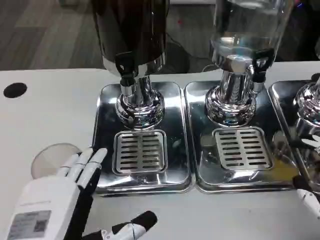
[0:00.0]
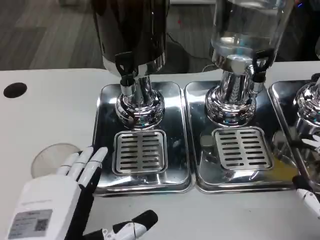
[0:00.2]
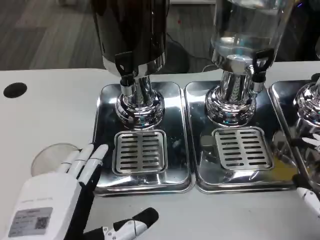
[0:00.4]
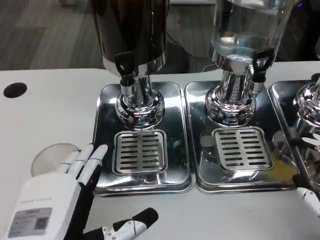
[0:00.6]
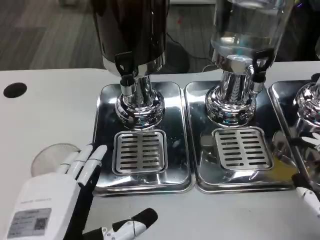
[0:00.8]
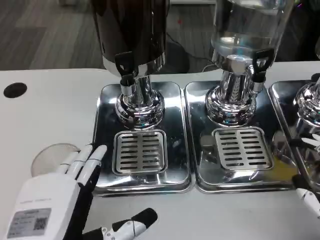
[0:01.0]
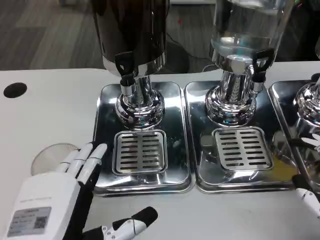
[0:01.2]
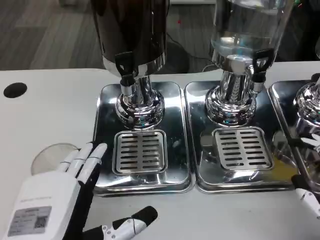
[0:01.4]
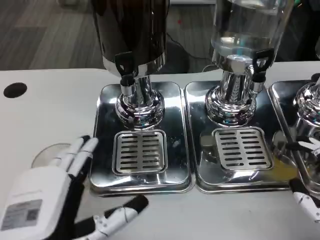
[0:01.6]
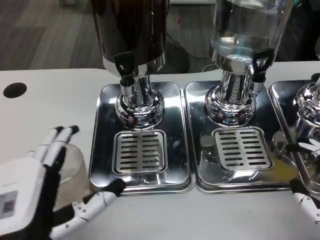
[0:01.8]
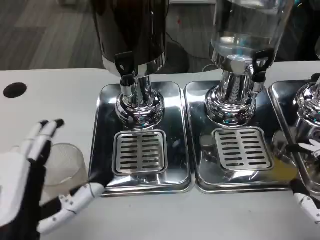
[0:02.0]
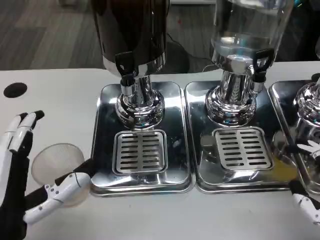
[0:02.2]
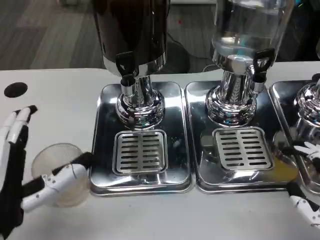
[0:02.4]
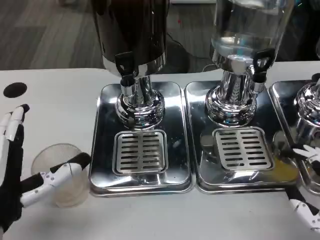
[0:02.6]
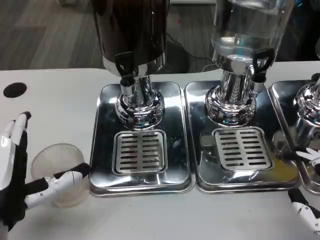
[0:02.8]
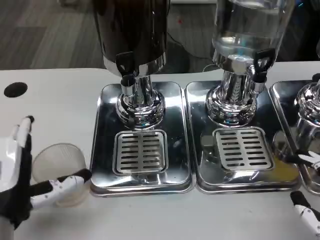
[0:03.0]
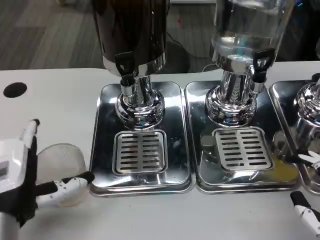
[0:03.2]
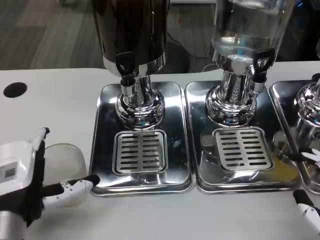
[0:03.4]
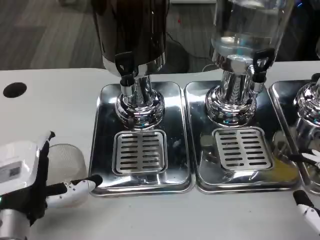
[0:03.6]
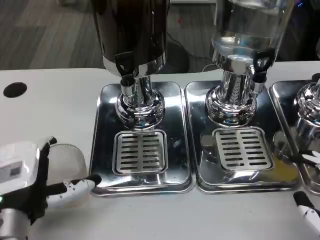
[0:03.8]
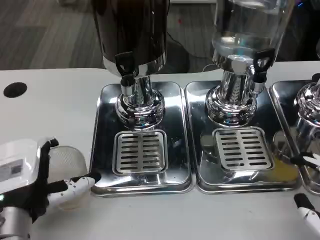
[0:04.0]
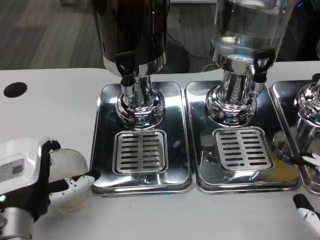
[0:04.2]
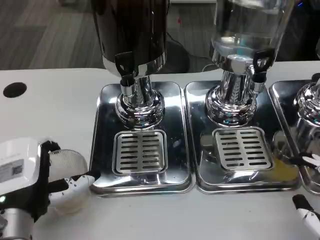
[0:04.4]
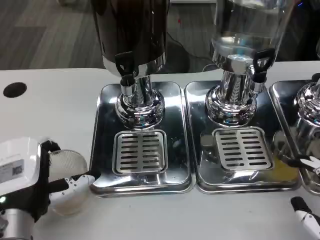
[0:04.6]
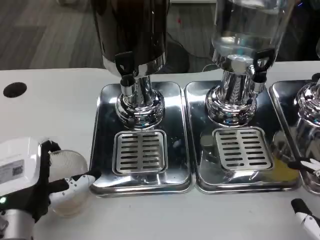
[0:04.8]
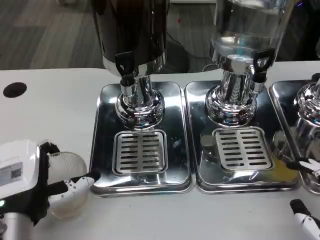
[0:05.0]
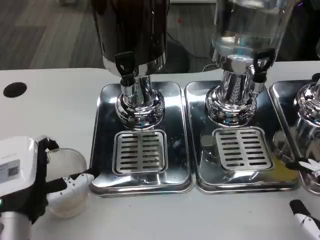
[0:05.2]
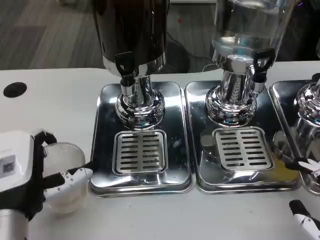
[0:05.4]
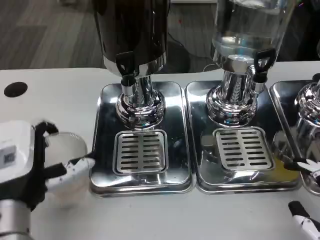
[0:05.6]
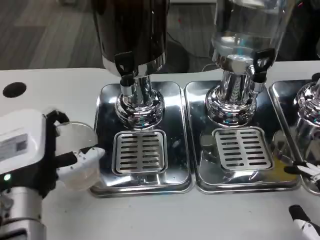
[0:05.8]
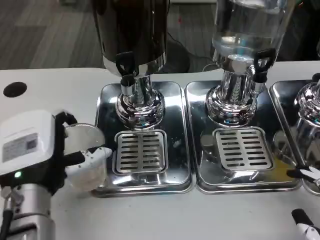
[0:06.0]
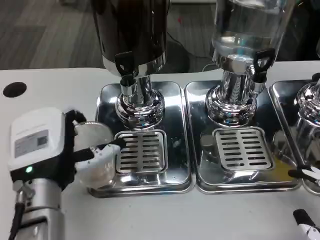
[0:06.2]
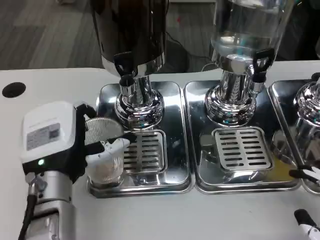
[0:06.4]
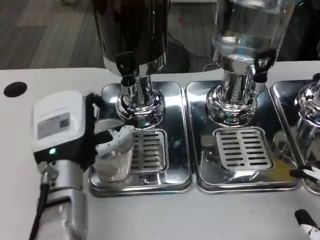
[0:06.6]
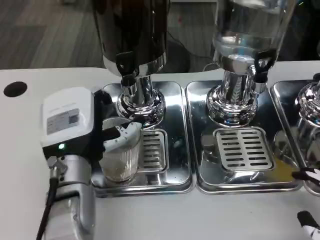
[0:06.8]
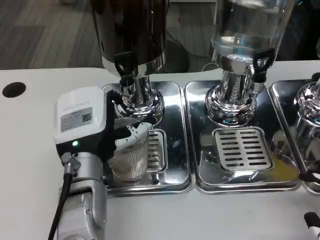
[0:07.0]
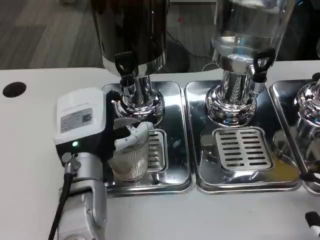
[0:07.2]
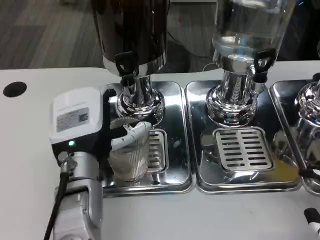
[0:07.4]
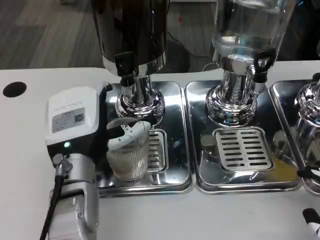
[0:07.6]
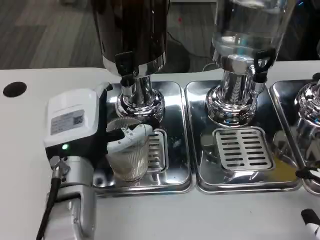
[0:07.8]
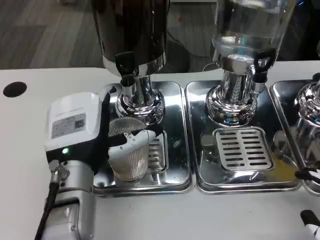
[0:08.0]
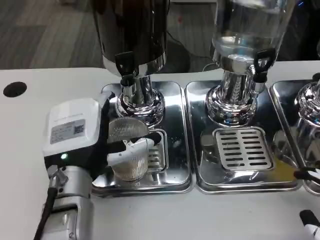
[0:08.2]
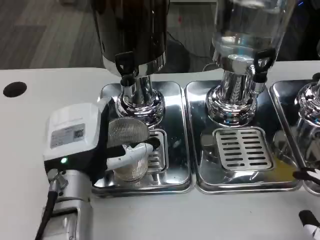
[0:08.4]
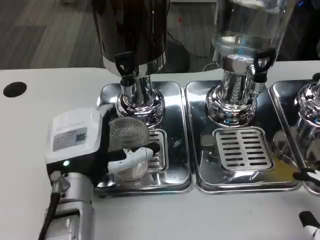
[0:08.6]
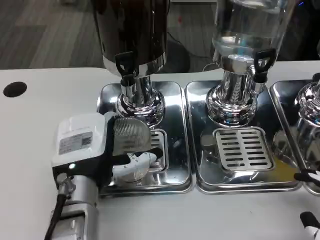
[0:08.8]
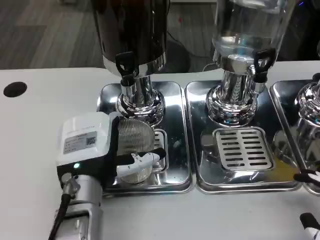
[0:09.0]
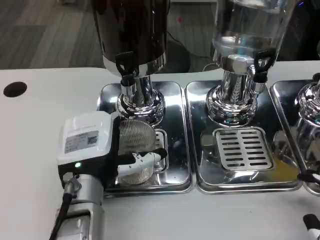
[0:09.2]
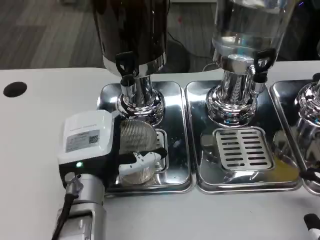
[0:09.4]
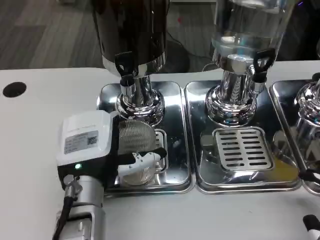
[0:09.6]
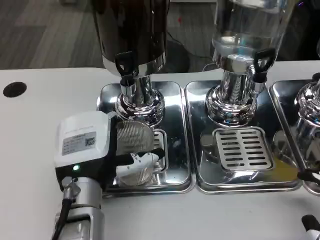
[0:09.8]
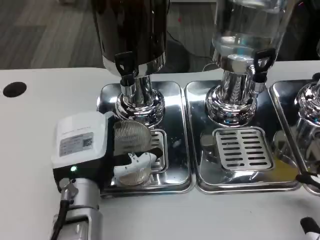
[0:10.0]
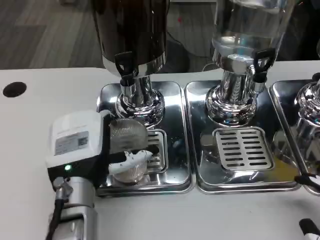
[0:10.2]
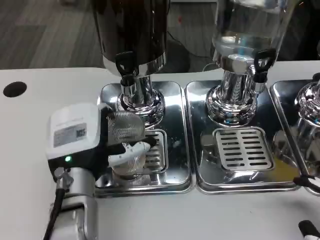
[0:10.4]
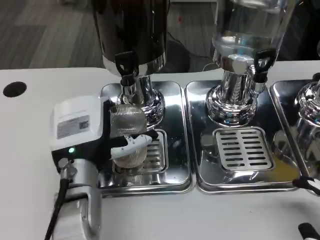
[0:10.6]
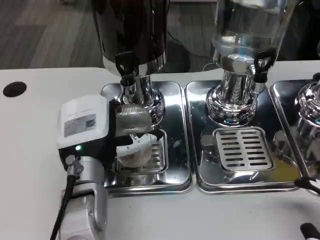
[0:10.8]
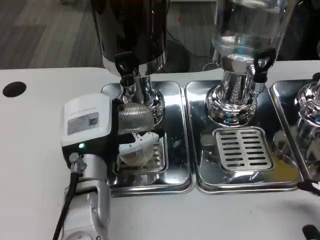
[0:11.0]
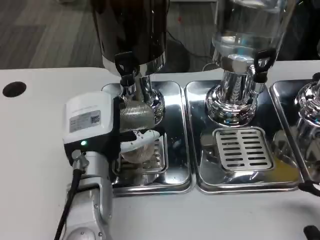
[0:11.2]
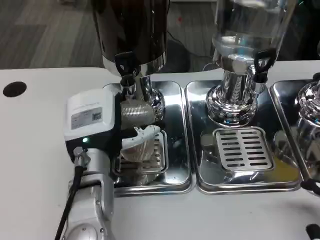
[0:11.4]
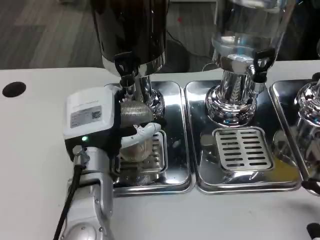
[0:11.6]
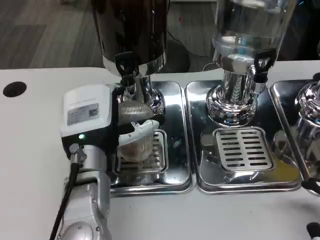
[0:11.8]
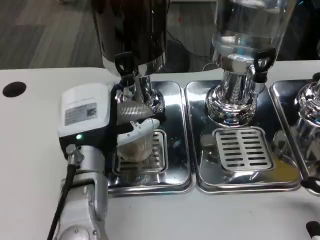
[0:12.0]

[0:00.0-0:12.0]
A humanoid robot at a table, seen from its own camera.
Task of the whole recording: Grasp the cup under the faucet to collect the drink, then remove the cup.
0:00.0 to 0:01.6: Both hands stay about where they are.
0:01.6 to 0:03.0: The left hand moves forward, roughly 5 cm.
0:03.0 to 0:06.0: There are only small adjustments of the hands.
0:06.0 to 0:07.6: The left hand ends up roughly 5 cm from where it was.
0:07.6 to 0:12.0: The hands stay close to where they were, moving slightly.

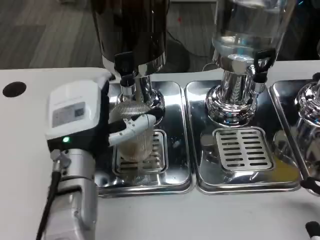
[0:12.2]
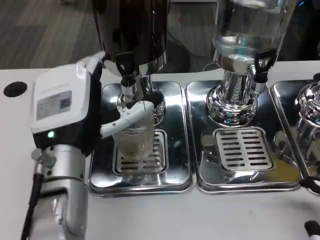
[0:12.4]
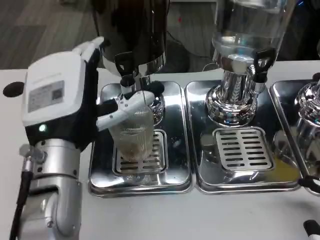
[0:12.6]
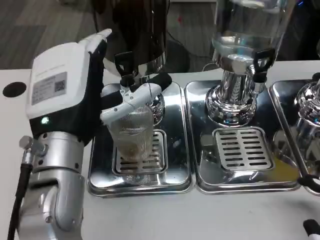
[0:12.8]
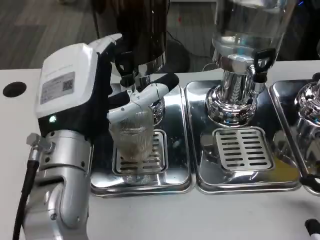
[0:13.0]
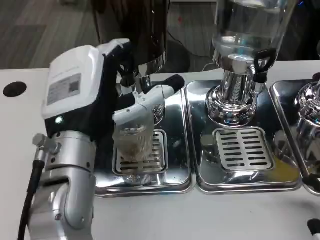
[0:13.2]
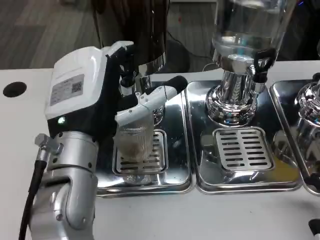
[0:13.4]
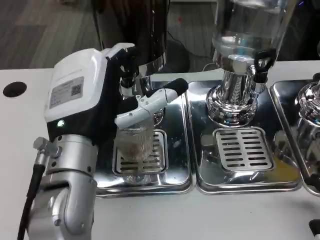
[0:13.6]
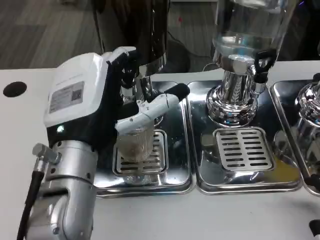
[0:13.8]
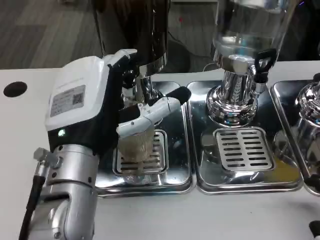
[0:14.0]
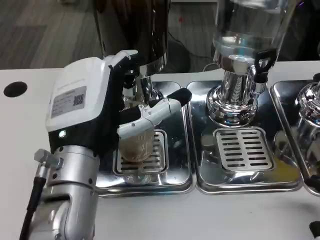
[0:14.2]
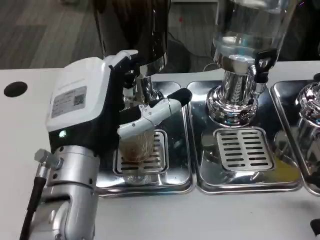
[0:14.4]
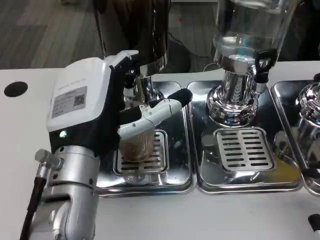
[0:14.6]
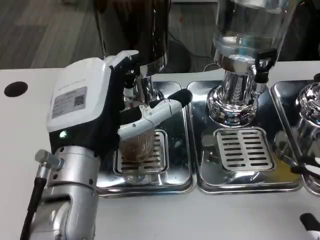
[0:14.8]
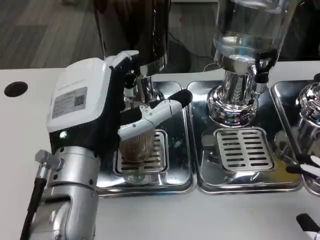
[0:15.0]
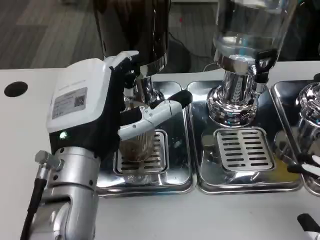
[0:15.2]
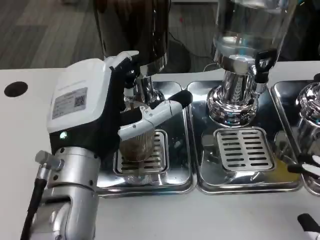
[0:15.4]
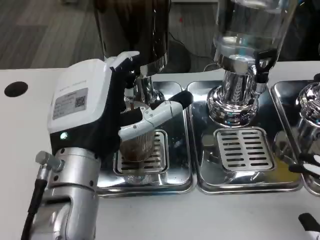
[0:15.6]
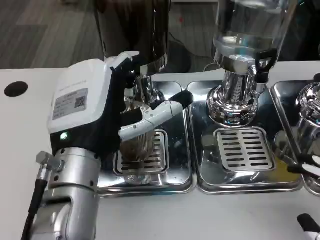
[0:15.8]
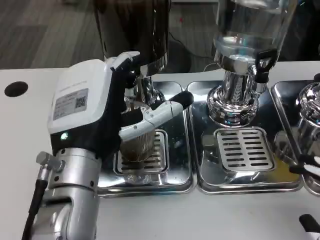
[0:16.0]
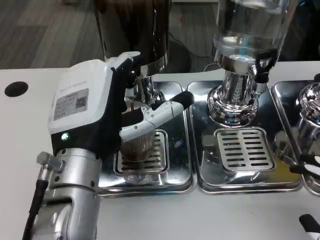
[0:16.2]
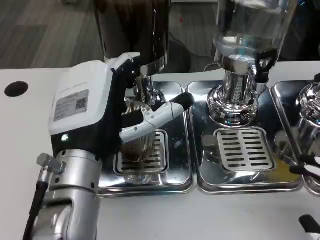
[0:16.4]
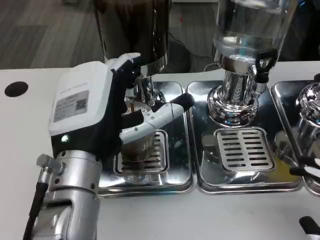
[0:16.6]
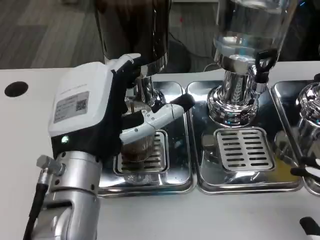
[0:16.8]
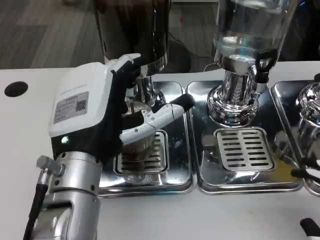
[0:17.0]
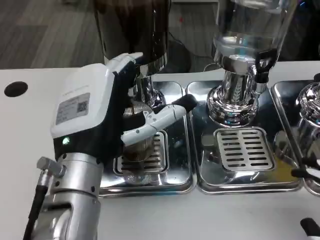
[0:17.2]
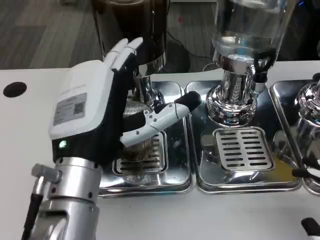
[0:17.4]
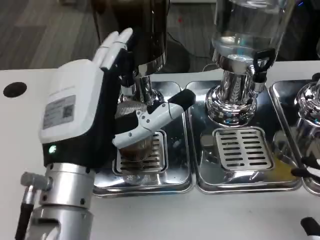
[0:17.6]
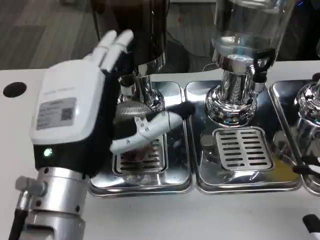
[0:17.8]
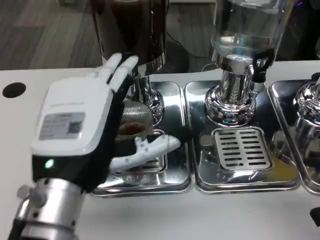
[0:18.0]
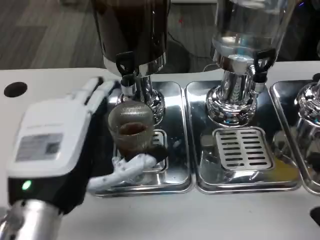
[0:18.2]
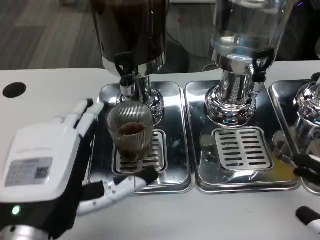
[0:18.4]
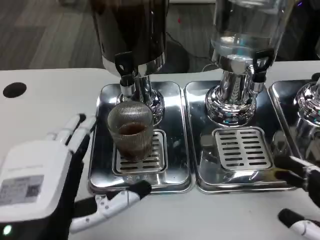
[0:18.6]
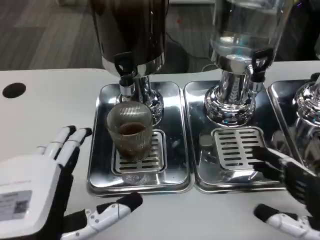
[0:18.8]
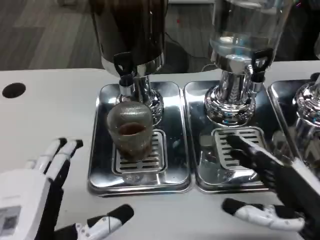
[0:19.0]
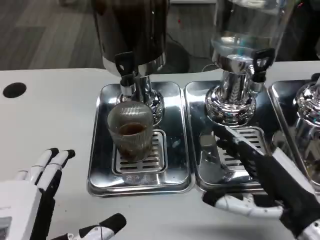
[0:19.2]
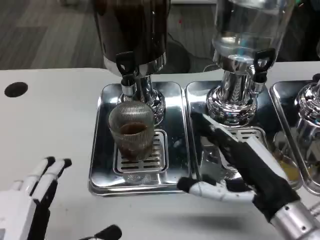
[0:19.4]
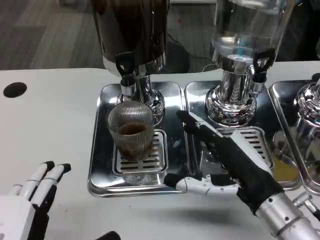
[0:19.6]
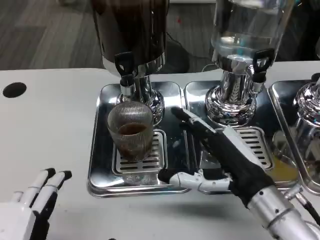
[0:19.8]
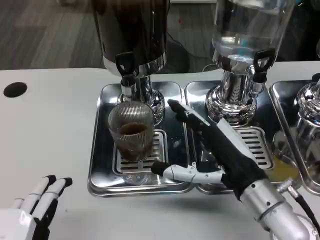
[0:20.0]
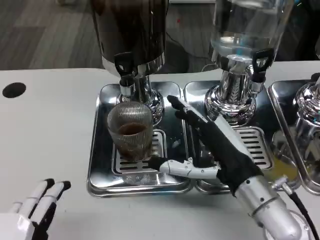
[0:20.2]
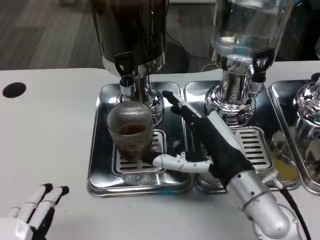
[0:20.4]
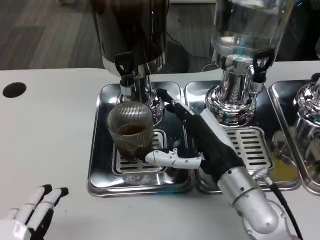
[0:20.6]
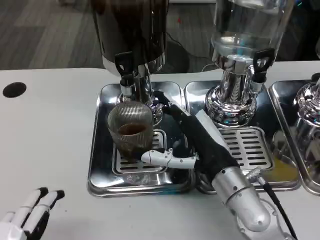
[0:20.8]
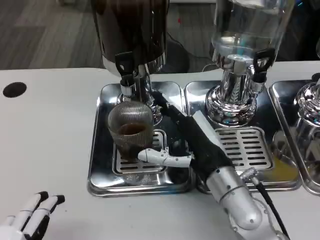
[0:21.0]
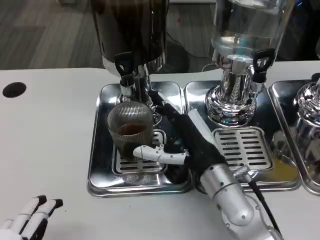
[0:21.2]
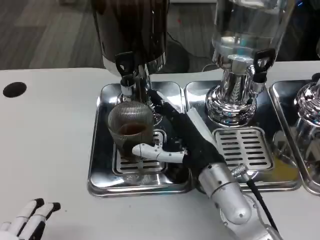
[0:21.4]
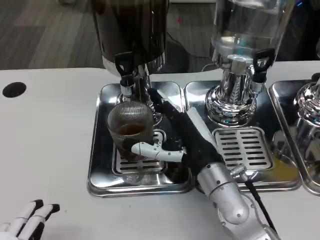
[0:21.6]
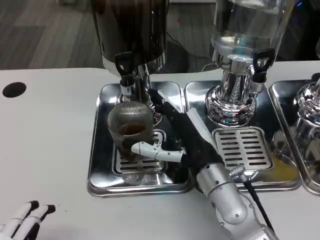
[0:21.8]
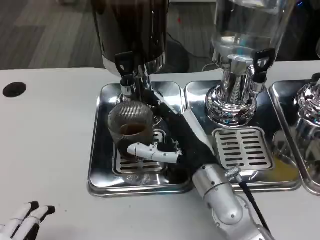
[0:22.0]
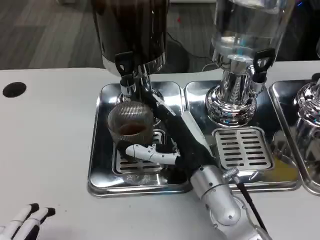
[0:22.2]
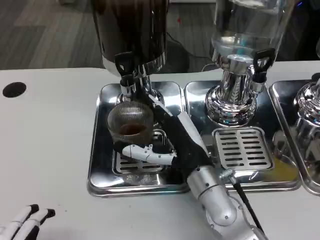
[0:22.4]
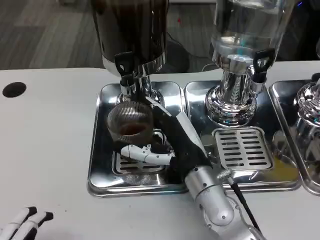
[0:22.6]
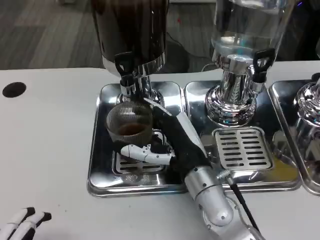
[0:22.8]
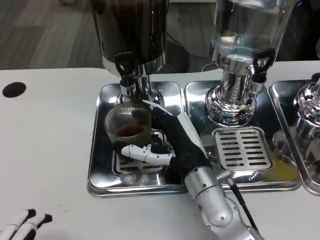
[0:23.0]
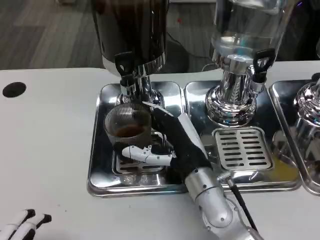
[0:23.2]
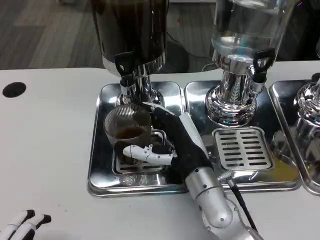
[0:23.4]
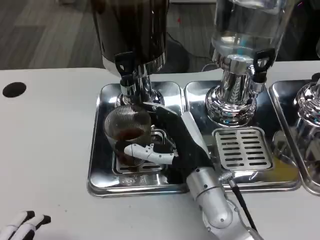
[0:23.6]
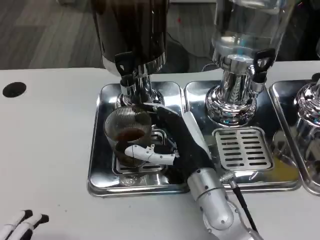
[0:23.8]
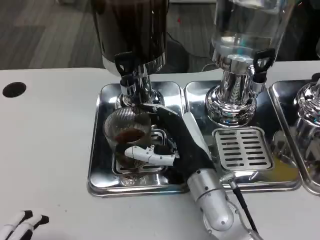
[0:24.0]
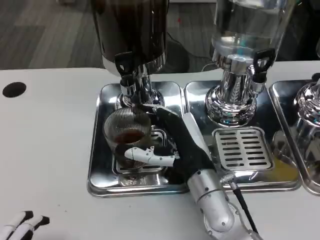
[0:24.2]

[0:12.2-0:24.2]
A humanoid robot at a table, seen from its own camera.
Task of the whole recording: Grasp the cup under the faucet to collect the drink, then remove the cup.
0:12.2 to 0:13.8: The left hand changes place by roughly 5 cm.
0:15.2 to 0:16.6: Both hands stay put.
0:16.6 to 0:18.2: The left hand is displaced backward by approximately 5 cm.
0:18.2 to 0:19.8: The right hand travels to the left and forward by some 20 cm. Meanwhile the left hand is displaced backward by some 10 cm.
0:19.8 to 0:21.2: The right hand goes some 5 cm to the left.
0:21.2 to 0:22.6: There are only small adjustments of the hands.
0:22.6 to 0:24.2: The two hands keep their place.
